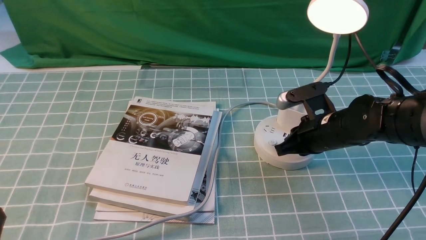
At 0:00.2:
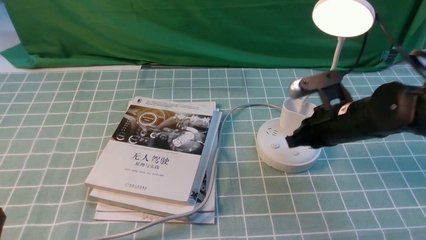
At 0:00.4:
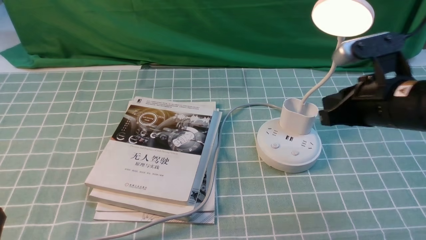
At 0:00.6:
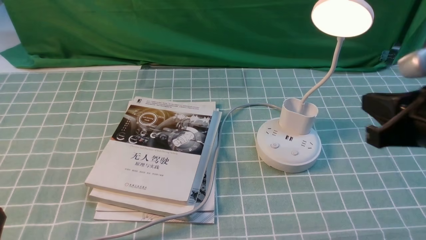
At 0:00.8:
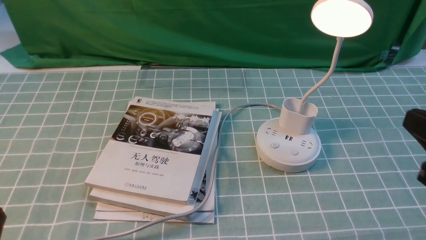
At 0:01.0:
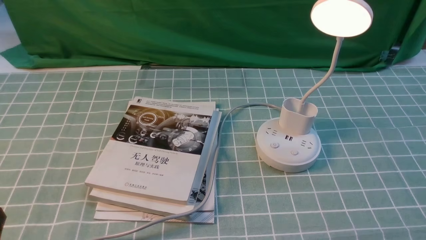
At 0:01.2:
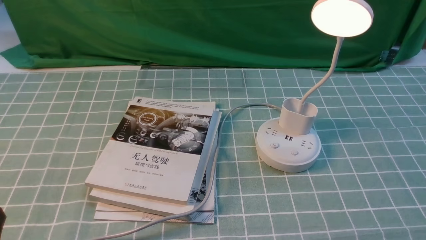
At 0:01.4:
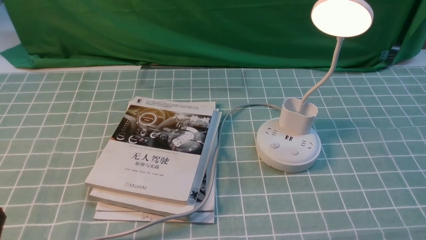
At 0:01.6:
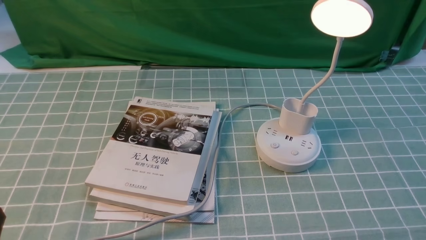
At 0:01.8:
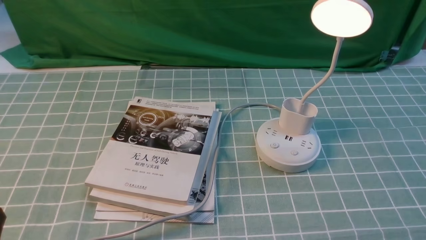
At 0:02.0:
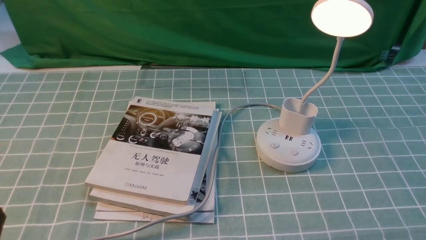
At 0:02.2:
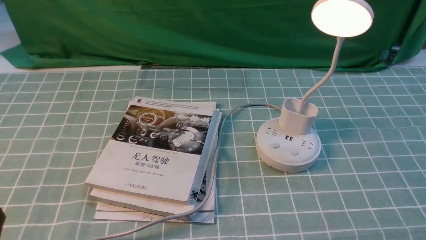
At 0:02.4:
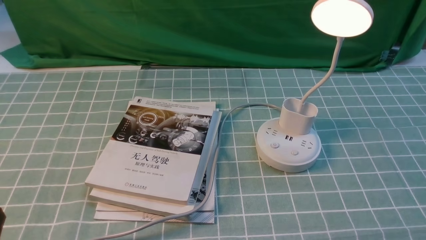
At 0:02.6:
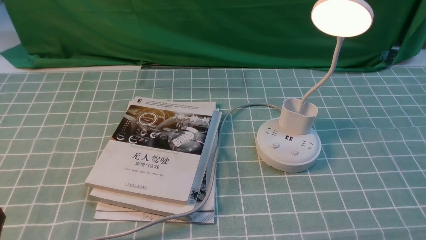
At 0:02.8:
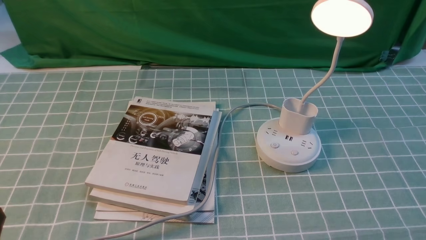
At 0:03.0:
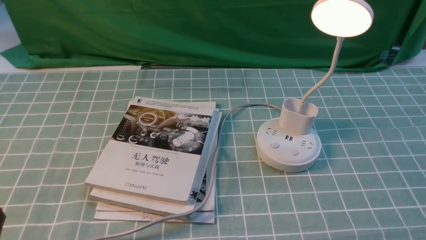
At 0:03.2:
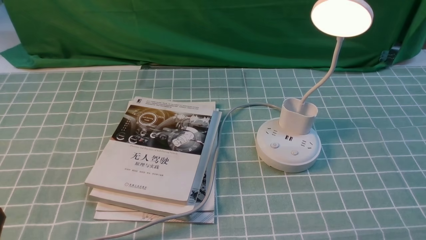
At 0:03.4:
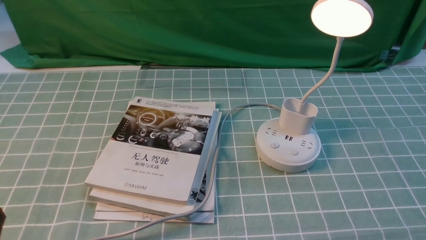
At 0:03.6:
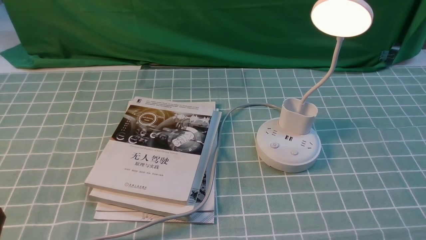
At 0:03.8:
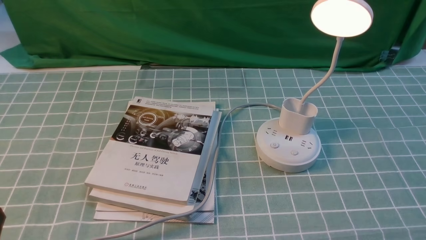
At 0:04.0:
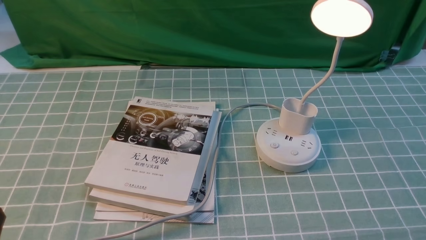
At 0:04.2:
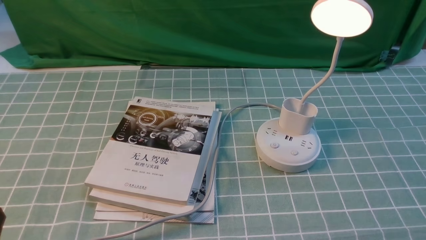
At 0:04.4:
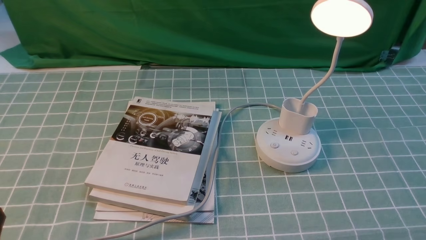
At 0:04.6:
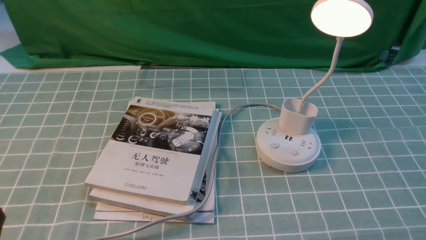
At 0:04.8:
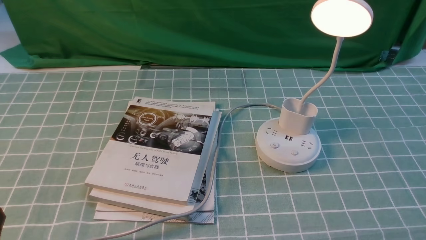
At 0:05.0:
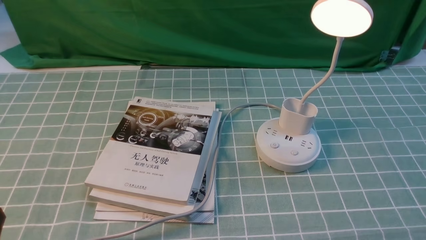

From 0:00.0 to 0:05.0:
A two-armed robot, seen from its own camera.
From 0:00.0 to 0:01.6: The right gripper is displaced backward and to the right by some 30 cm.
From 0:03.4 to 0:05.0: Neither gripper changes place.
